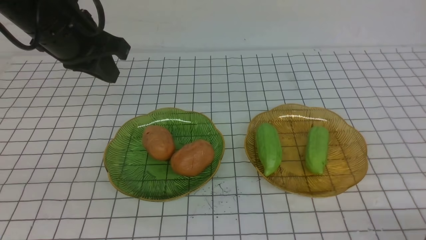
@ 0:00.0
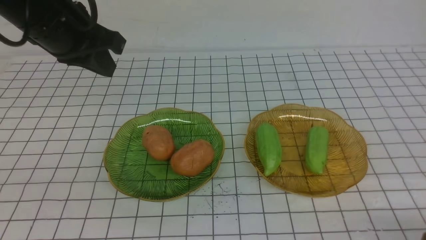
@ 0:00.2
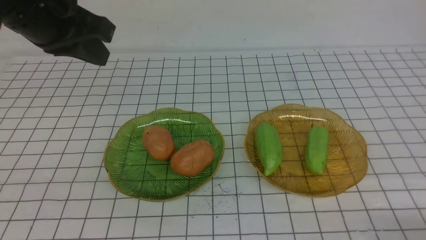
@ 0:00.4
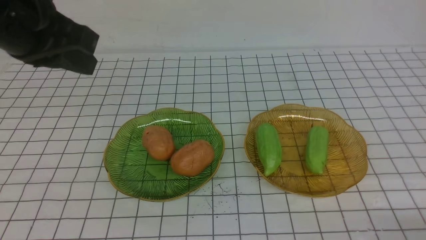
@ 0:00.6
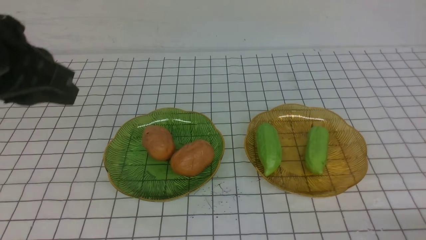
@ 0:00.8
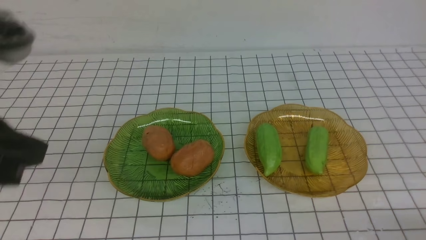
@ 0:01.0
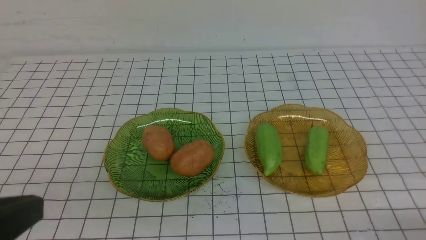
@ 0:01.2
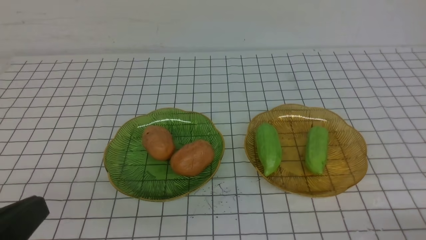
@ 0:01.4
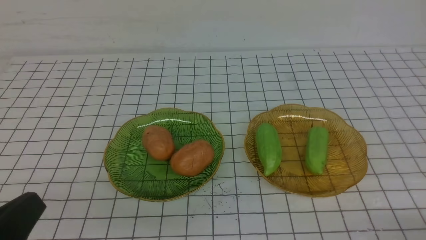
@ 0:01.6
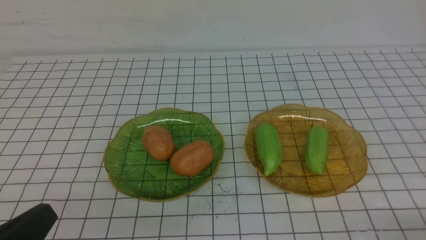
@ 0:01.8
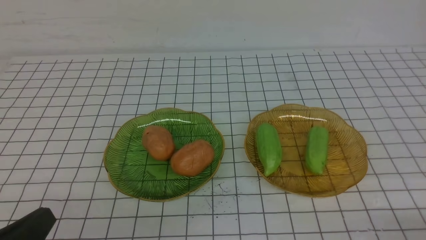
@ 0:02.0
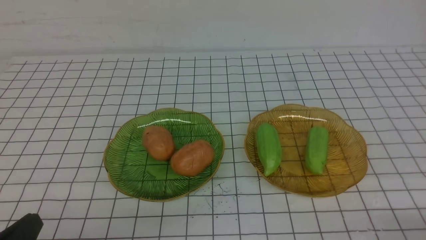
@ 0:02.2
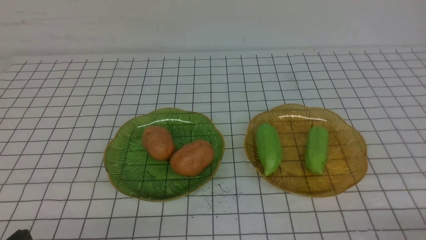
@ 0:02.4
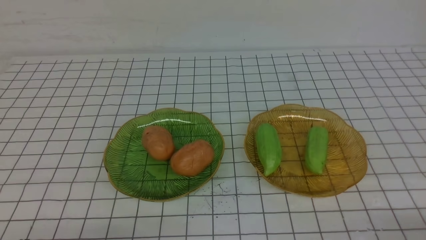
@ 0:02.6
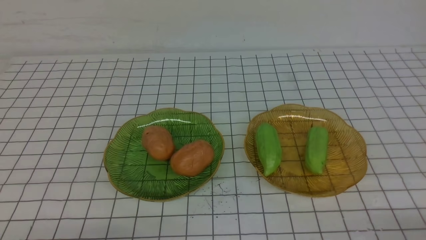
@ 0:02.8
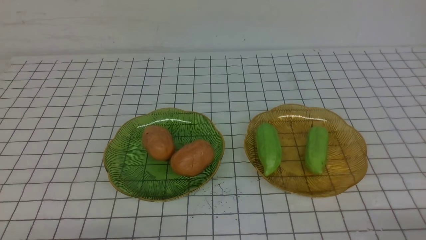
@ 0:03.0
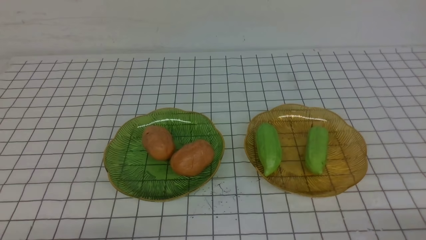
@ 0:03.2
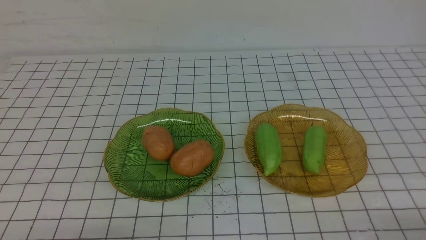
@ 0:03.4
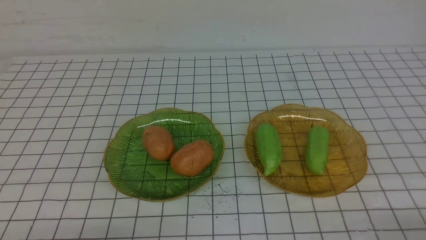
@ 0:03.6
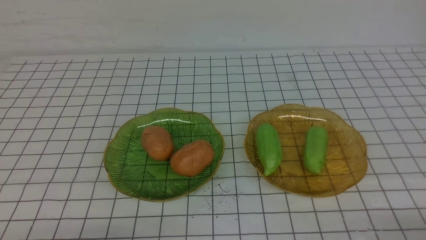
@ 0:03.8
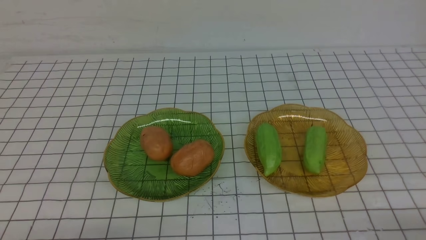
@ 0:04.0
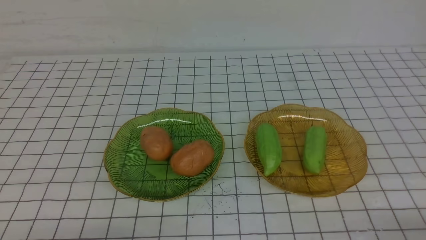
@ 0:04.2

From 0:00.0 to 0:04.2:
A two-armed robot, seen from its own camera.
From 0:00.0 to 0:01.4: The left gripper heads backward, covering roughly 30 cm.
From 0:01.4 to 0:02.8: The left gripper heads downward, covering approximately 15 cm.
From 0:02.8 to 0:04.2: Both grippers stay about where they are.

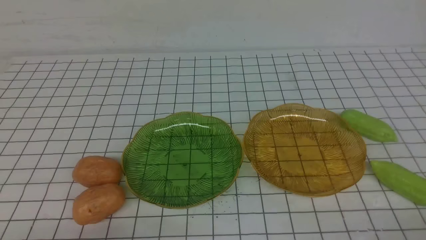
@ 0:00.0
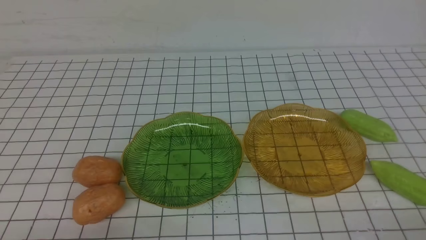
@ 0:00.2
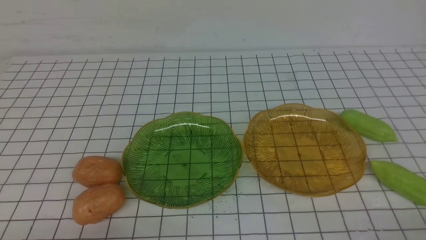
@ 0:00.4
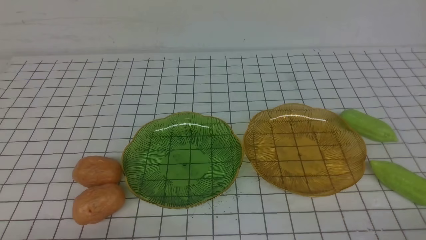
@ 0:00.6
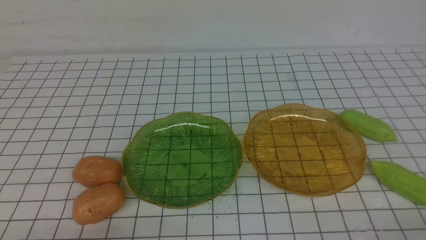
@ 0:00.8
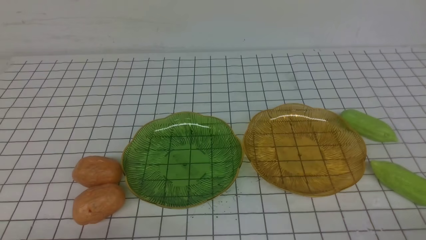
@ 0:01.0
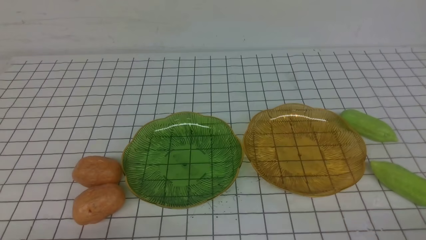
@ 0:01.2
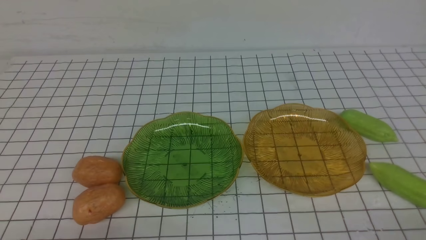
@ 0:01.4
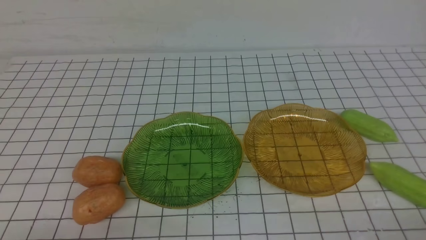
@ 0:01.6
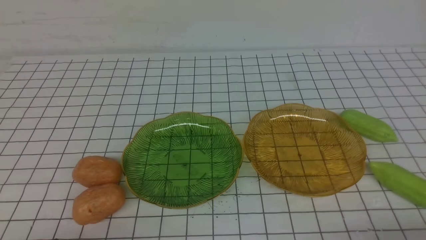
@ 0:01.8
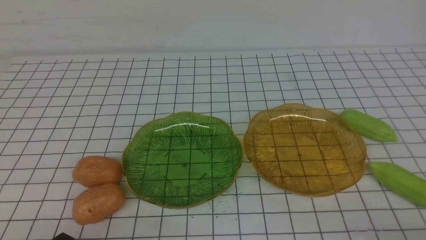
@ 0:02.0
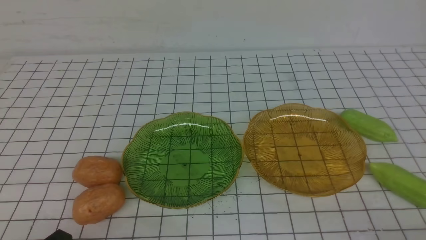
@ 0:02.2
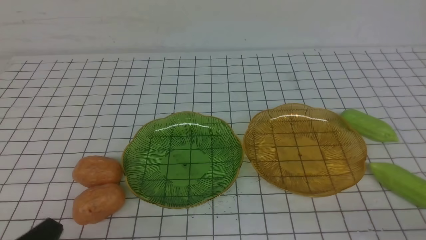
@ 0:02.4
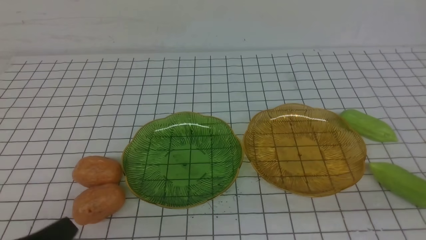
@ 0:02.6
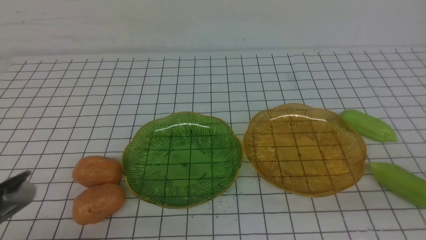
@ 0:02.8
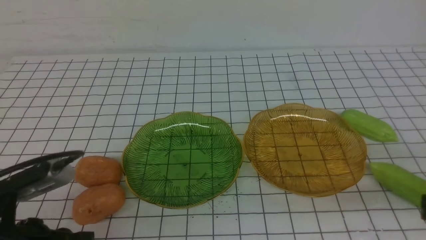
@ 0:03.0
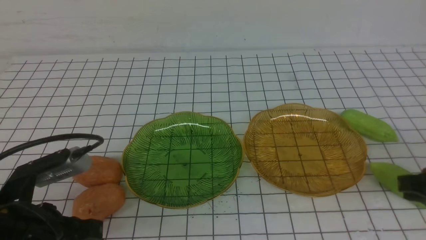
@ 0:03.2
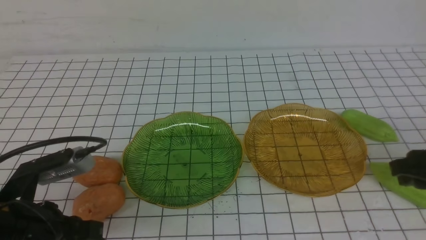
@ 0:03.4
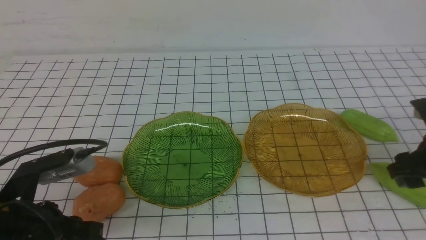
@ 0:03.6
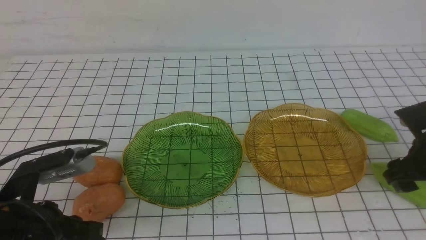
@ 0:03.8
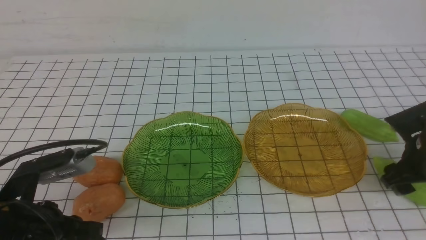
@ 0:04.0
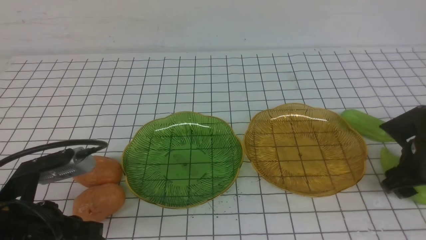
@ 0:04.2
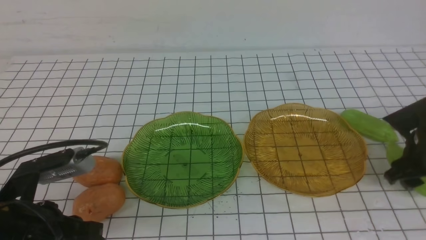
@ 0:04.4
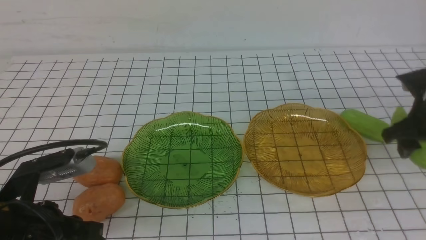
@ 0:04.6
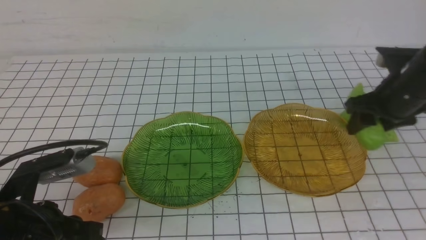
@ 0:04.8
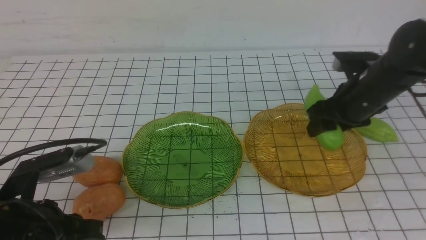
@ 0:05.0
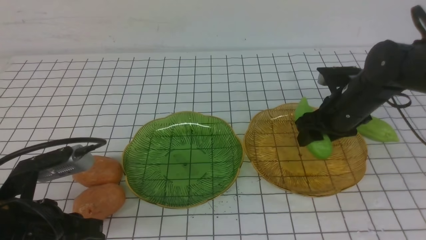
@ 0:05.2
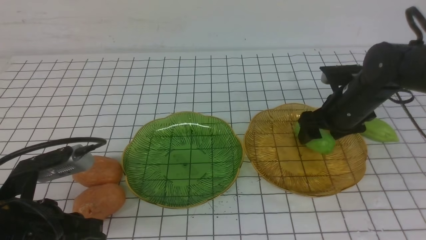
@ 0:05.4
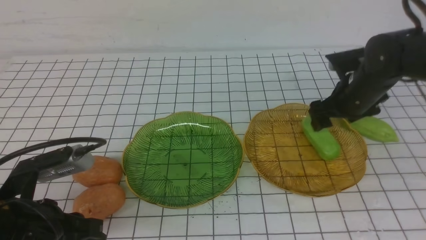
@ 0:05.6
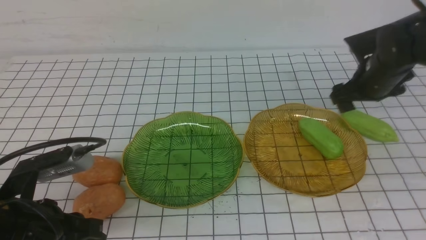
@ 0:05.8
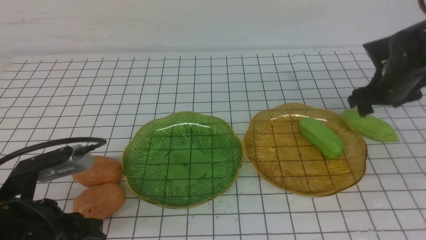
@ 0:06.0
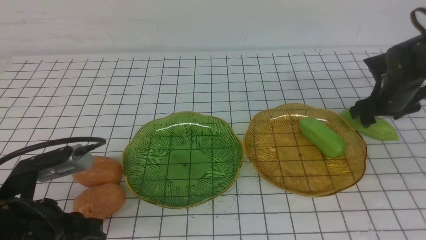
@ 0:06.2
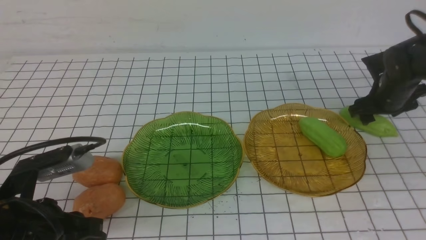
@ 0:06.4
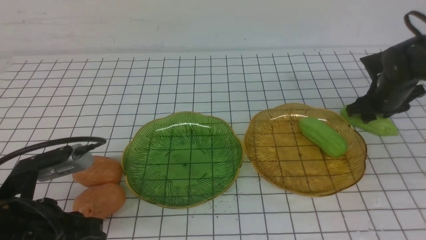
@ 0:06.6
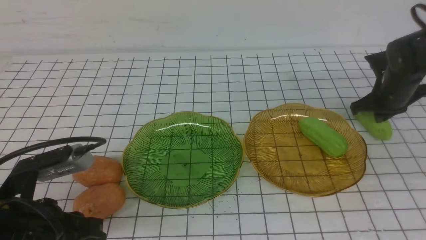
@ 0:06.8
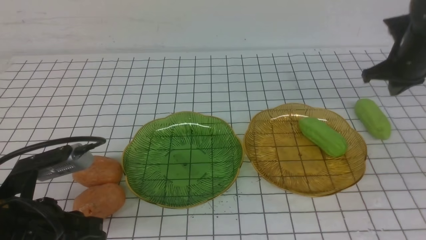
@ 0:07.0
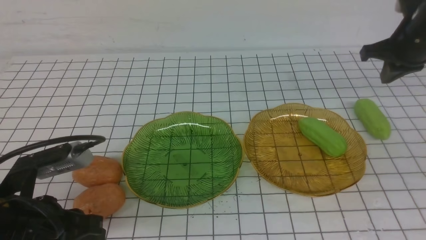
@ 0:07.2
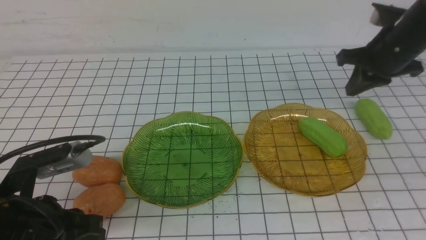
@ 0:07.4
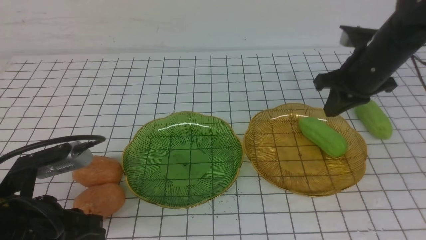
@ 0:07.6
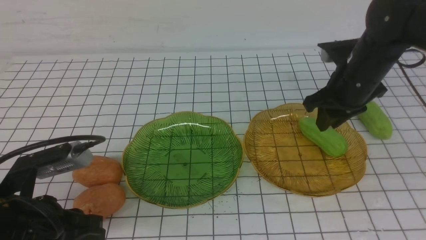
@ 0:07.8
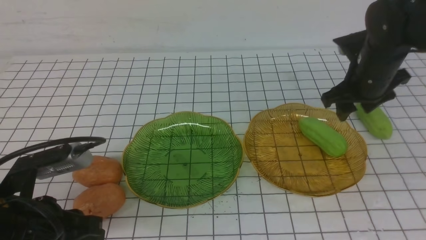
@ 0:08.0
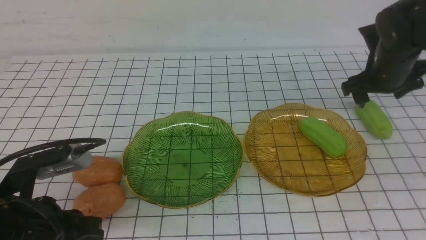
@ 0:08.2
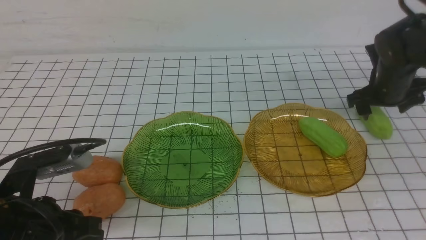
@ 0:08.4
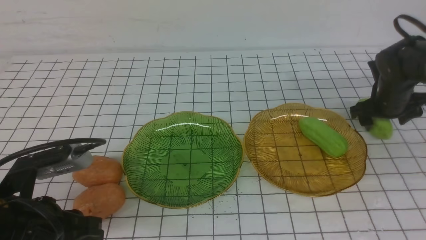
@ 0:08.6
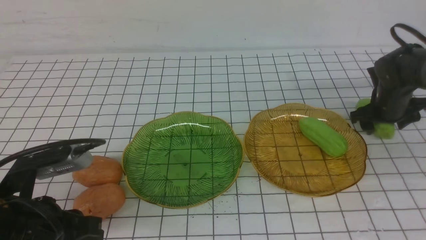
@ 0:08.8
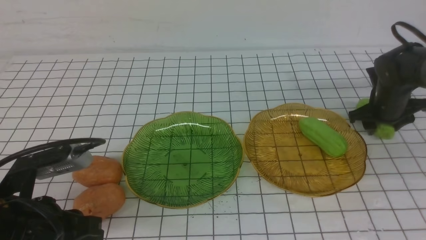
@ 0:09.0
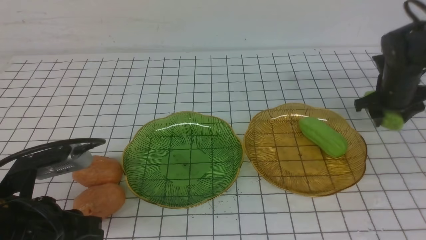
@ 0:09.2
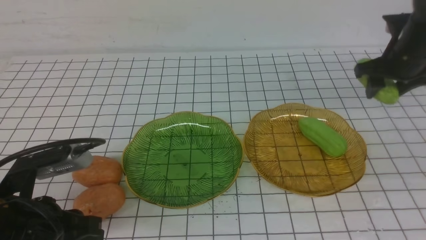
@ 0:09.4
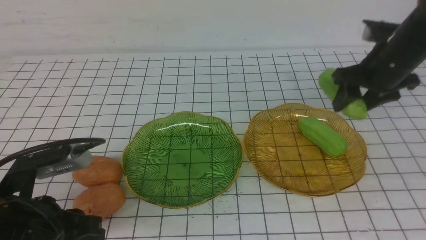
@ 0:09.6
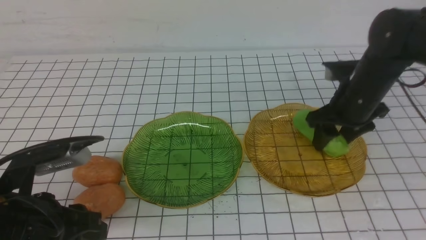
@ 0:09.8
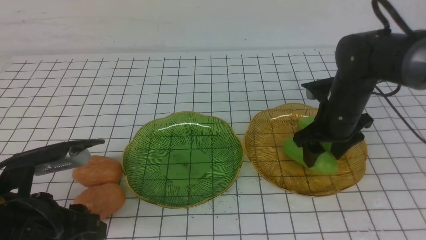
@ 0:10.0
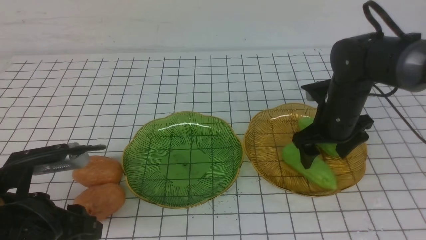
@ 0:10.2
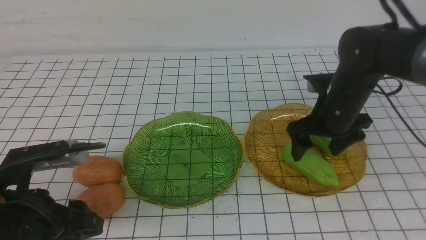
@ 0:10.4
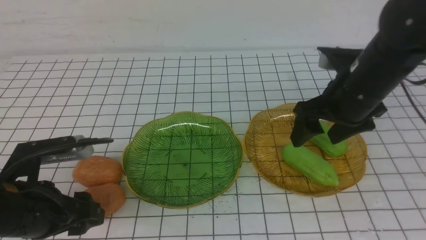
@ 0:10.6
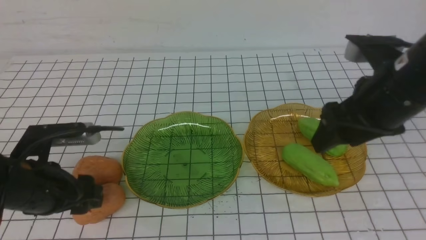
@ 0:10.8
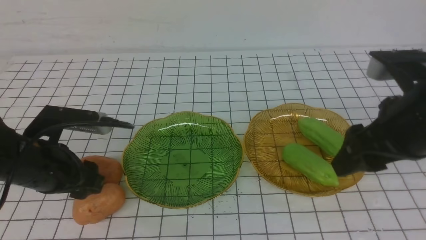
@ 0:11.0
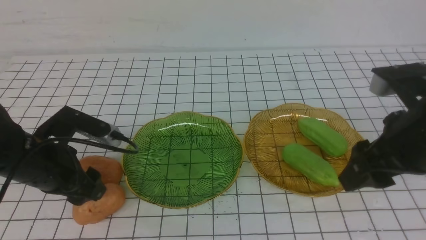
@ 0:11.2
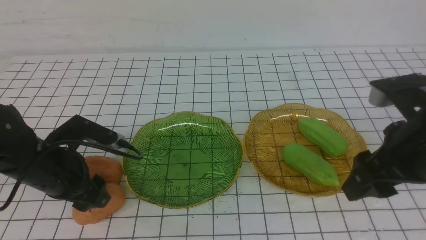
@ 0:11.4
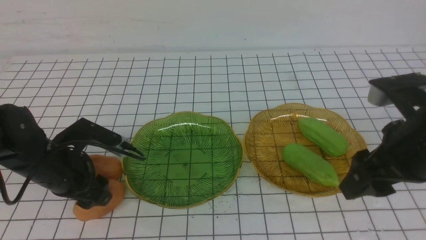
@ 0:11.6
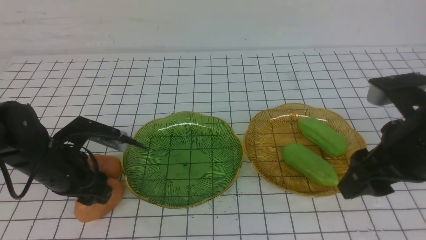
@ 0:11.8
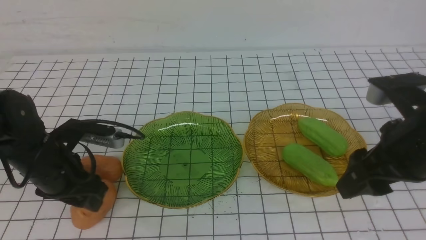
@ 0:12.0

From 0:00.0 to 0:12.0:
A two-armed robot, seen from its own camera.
Step, from 0:00.0 to 0:05.6: use the right arm to grab a chayote and put it into the right plate.
Step, from 0:05.8 to 0:10.2: use the right arm to grab a chayote and put it into the right plate.
From 0:01.6 to 0:03.0: The grippers both shift upward and forward by about 10 cm.
From 0:03.0 to 0:04.4: The right gripper heads forward and downward, covering approximately 20 cm, and opens up.
From 0:04.4 to 0:06.0: The right gripper travels forward by approximately 10 cm.
From 0:06.0 to 0:07.6: The right gripper is displaced upward by some 5 cm, and closes its fingers.
From 0:07.6 to 0:09.0: The right gripper goes about 15 cm downward, to the right and forward, and opens.
From 0:09.0 to 0:10.4: The right gripper moves to the left, backward and upward, approximately 20 cm; the left gripper opens its fingers.
From 0:10.4 to 0:12.0: The right gripper shifts some 15 cm backward and upward. The left gripper moves forward, about 10 cm.
